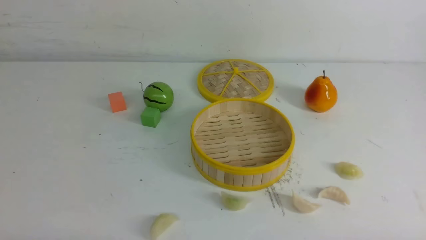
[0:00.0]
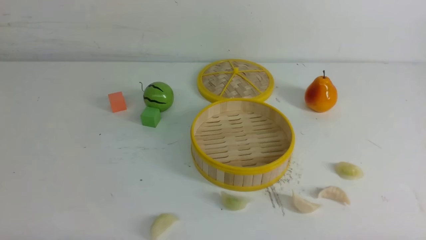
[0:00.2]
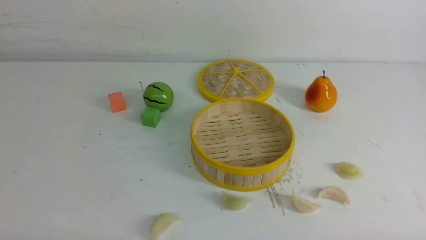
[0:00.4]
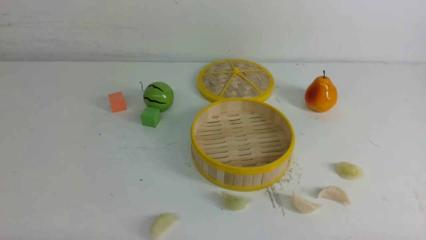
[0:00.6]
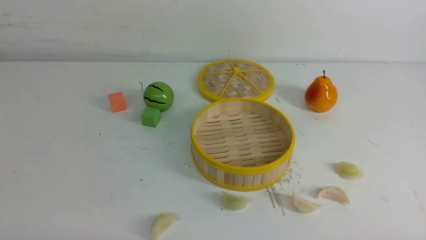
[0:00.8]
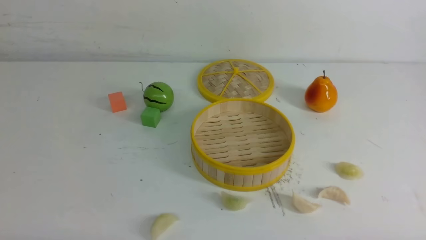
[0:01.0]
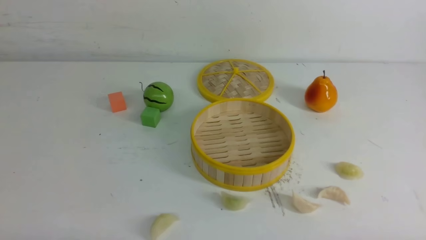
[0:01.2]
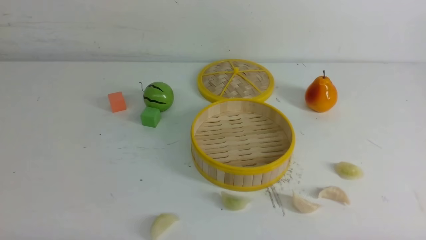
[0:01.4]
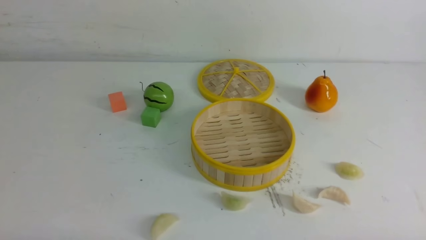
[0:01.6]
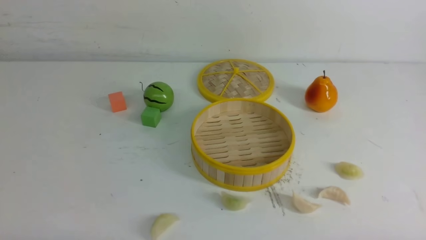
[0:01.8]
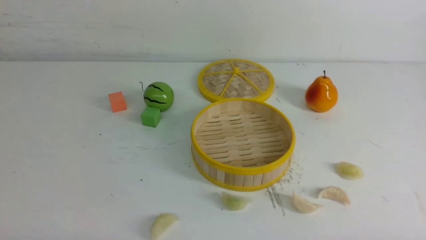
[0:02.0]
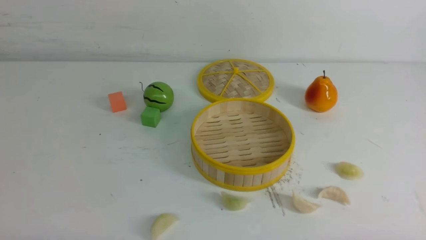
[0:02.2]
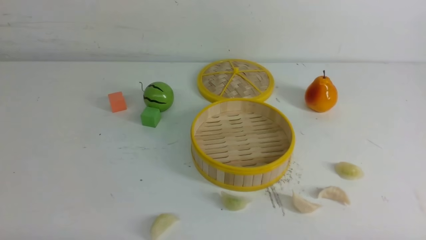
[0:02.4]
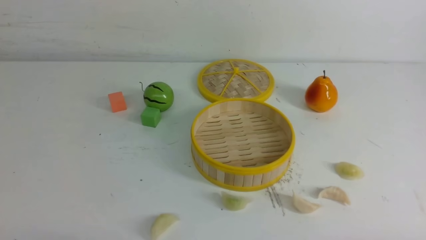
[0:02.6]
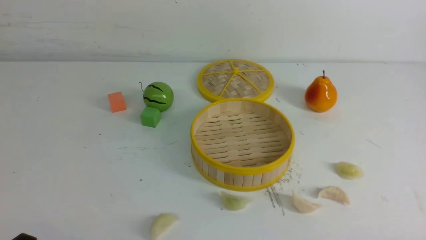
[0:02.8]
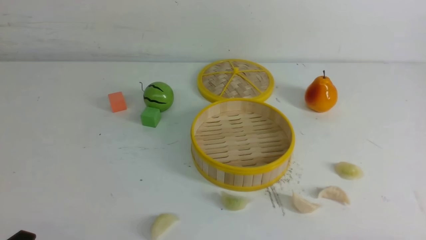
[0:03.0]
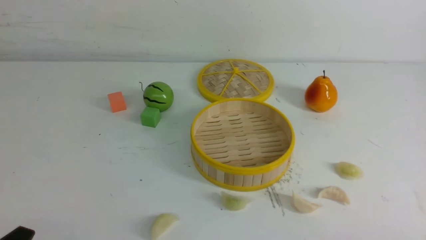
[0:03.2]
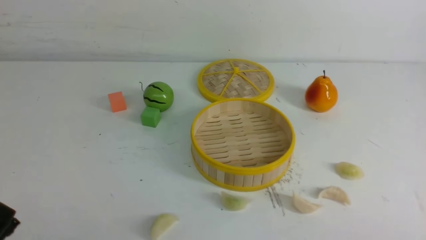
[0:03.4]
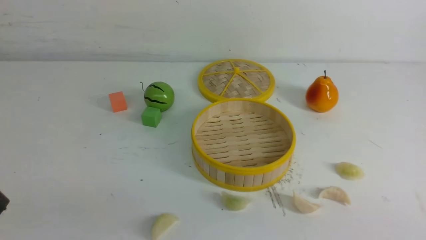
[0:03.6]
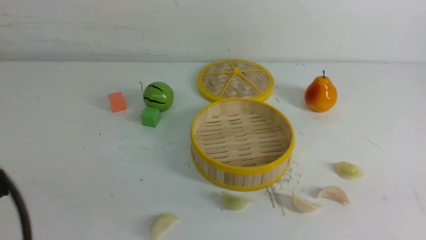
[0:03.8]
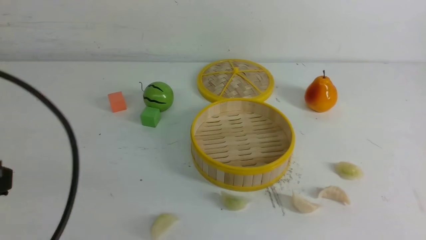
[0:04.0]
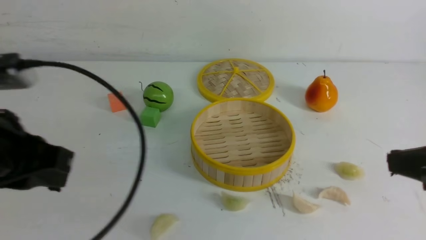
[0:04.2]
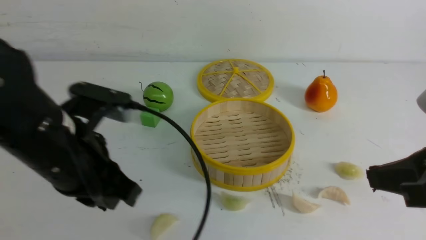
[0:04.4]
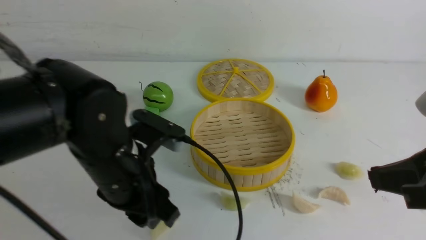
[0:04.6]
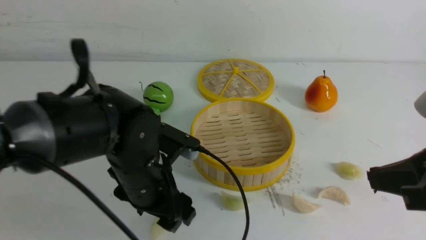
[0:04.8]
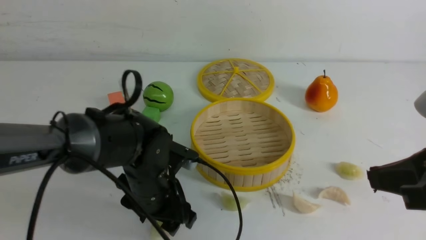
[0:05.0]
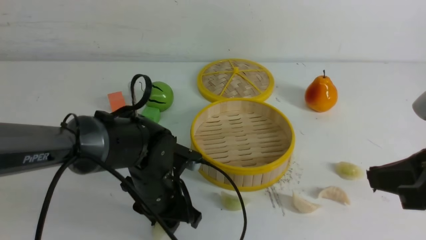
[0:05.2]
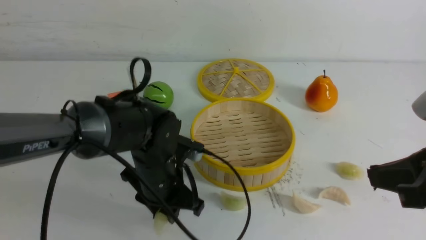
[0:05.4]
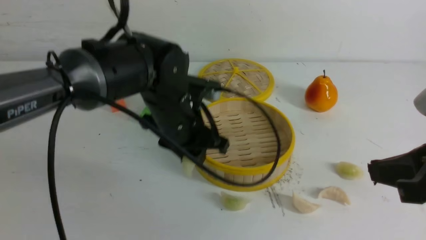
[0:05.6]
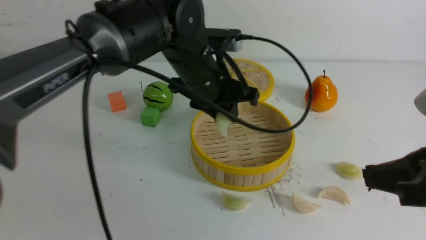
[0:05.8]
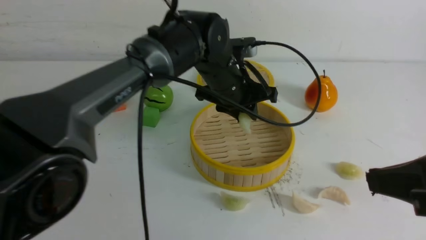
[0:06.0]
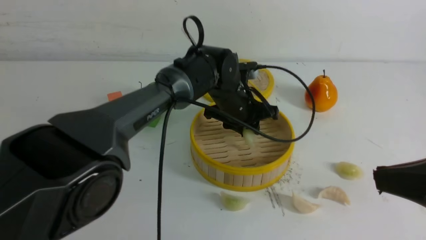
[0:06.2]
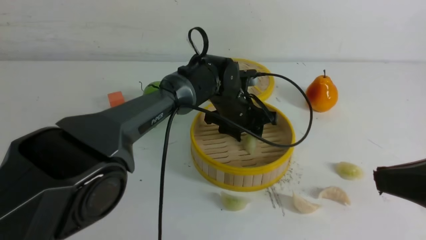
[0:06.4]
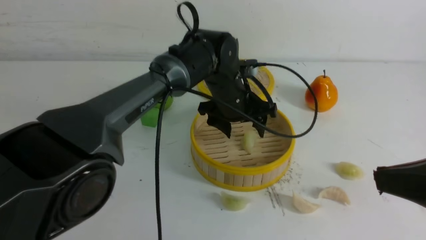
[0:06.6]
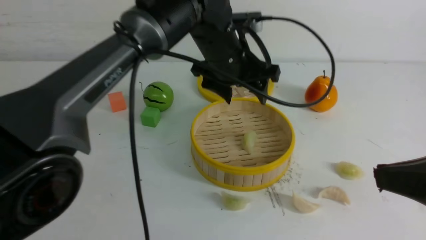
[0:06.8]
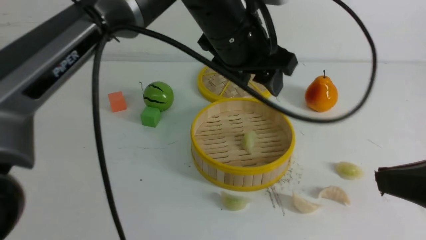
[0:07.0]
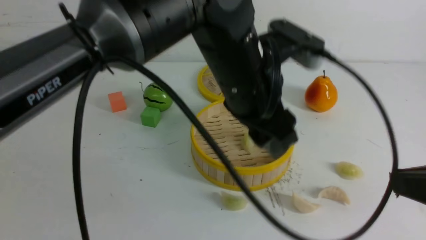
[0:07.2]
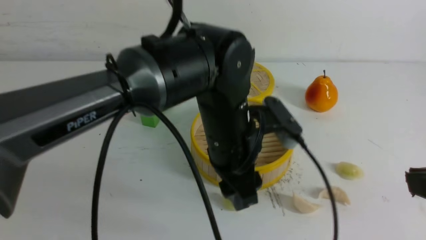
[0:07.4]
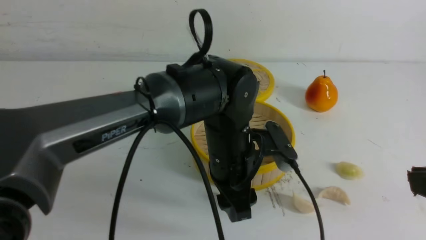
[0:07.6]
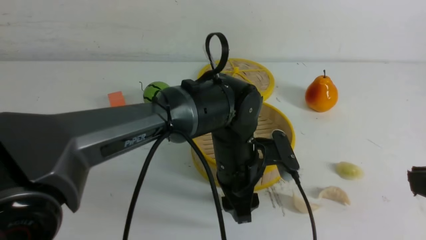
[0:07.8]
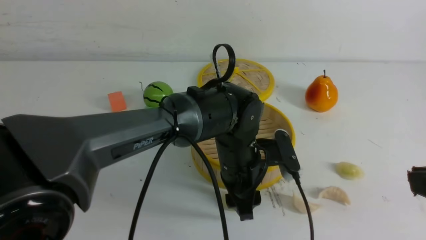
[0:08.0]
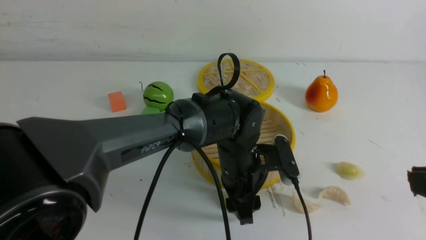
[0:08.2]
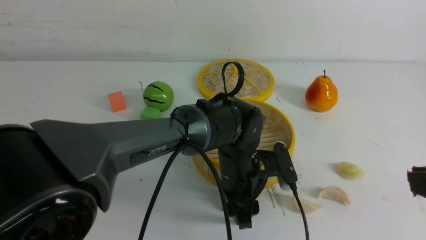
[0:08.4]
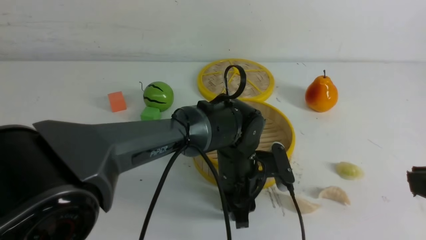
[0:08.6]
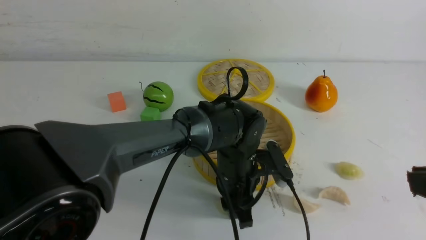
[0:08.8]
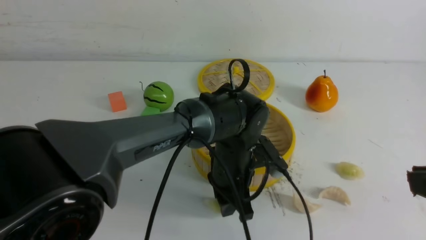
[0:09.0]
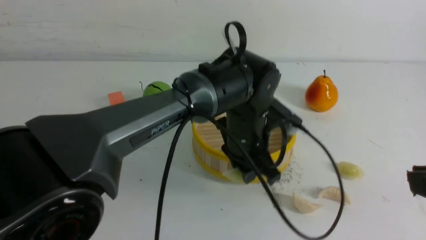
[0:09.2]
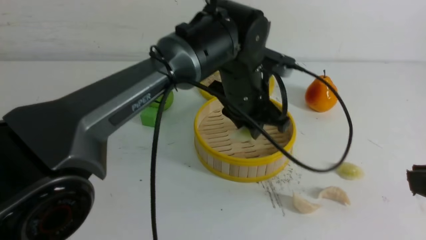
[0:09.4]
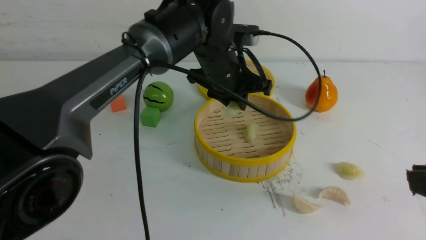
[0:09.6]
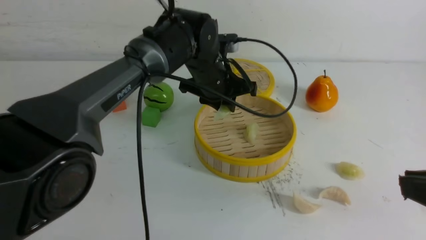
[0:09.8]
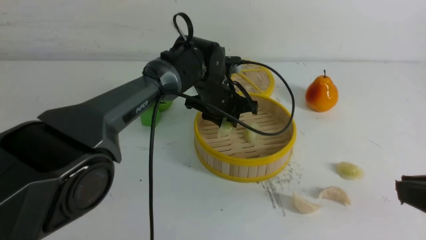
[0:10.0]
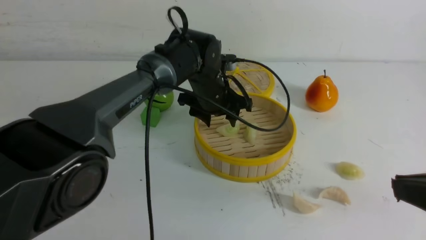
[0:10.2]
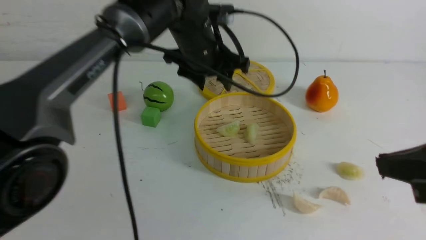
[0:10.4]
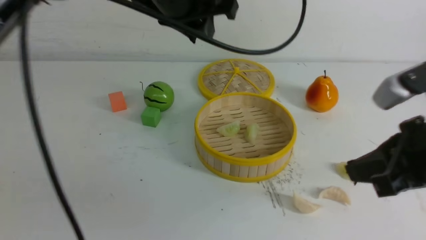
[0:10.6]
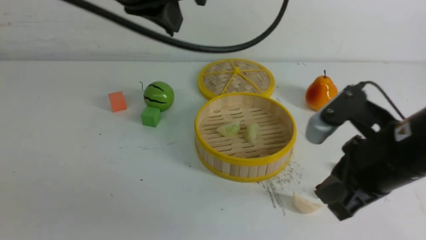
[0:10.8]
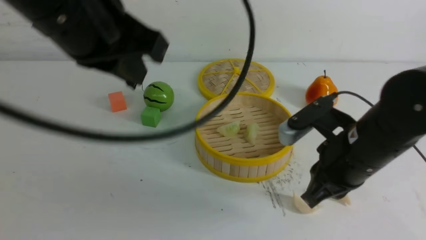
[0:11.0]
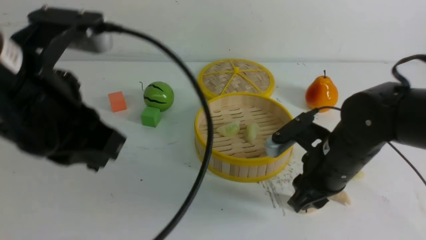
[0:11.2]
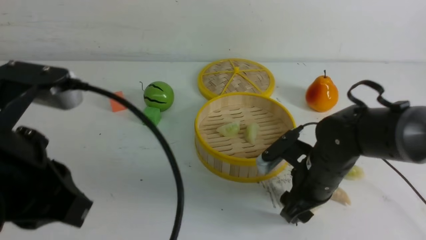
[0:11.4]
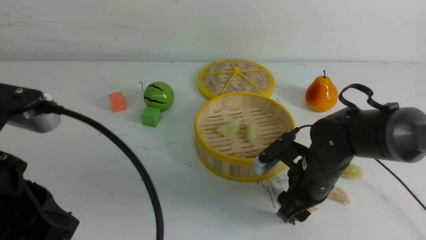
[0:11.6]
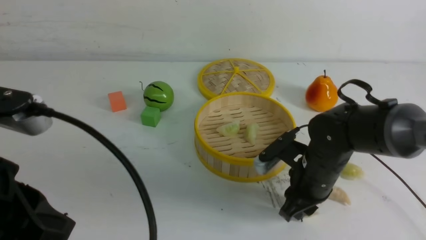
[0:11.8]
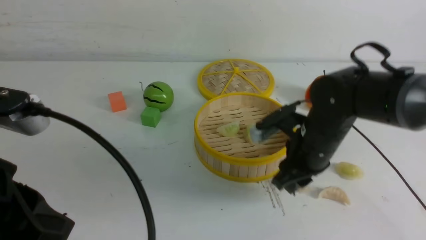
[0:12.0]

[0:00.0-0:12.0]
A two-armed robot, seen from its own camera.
Task of the whole recording: put the dumplings into the steamer on the white table.
Step, 0:00.0 to 0:05.2: use the left arm to grab a dumpling.
Step, 0:05.4 to 0:06.6: use the left arm to put the dumpling into the steamer.
Step, 0:06.8 to 0:09.0: use the left arm to grab a dumpling.
Step, 0:09.2 to 0:10.2: use the left arm to put the dumpling into the steamer.
Step, 0:10.4 to 0:11.8: use the right arm to grab a dumpling.
0:03.0 to 0:04.4: The right gripper moves upward and forward, some 20 cm, and closes its fingers. The left gripper is displaced forward, upward and to the right by some 20 cm.
0:04.4 to 0:06.0: The left gripper heads forward and to the right, covering some 25 cm, and opens, then closes once more.
0:06.0 to 0:07.6: The left gripper is displaced backward by roughly 10 cm, and opens its fingers; the right gripper shifts by about 5 cm.
0:07.6 to 0:09.0: The left gripper goes approximately 5 cm downward, and closes up.
0:09.0 to 0:10.4: The left gripper goes up and down, roughly 10 cm each way, reversing 2 times, and opens.
0:10.4 to 0:12.0: The right gripper moves forward, downward and to the left, approximately 25 cm, and opens up. Meanwhile the left gripper goes approximately 35 cm backward and to the left, and closes its fingers.

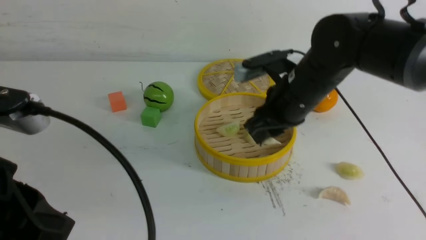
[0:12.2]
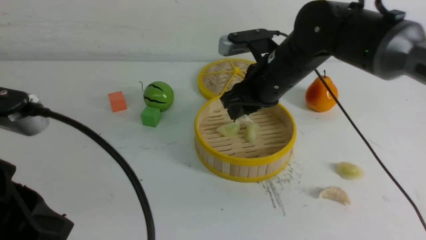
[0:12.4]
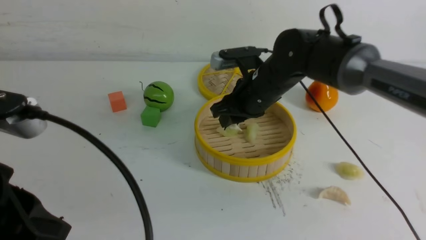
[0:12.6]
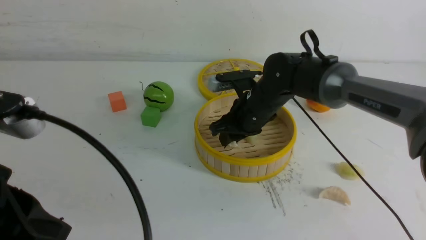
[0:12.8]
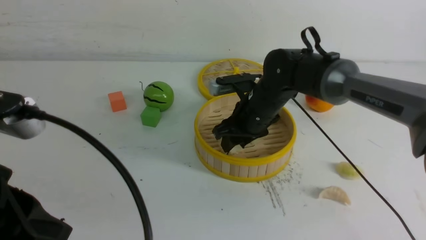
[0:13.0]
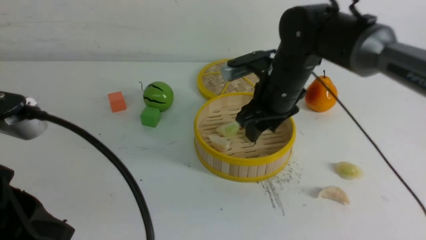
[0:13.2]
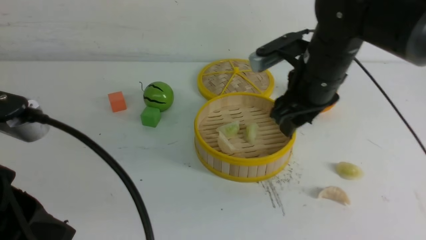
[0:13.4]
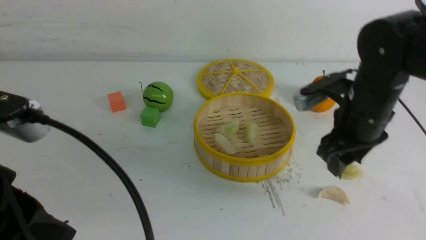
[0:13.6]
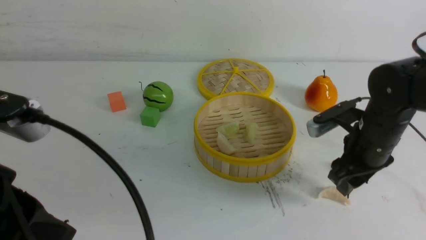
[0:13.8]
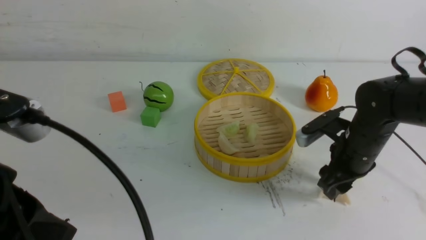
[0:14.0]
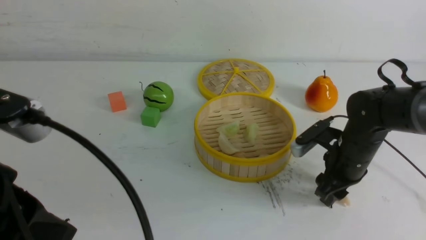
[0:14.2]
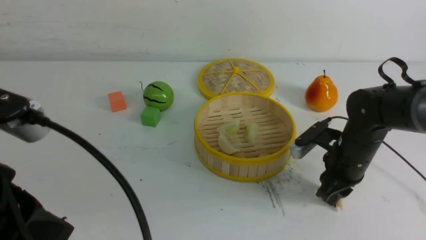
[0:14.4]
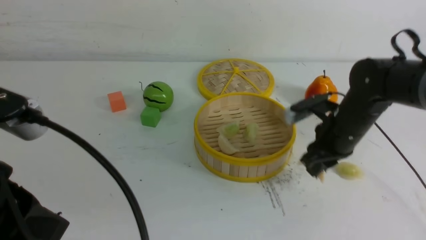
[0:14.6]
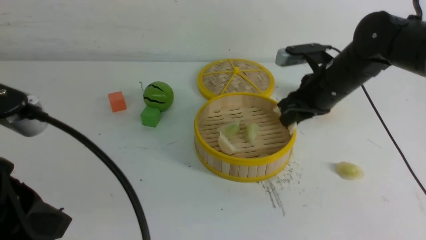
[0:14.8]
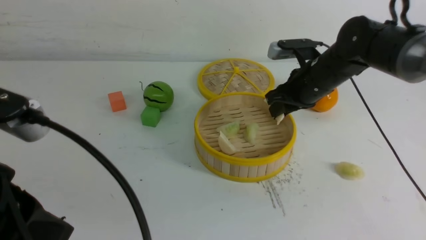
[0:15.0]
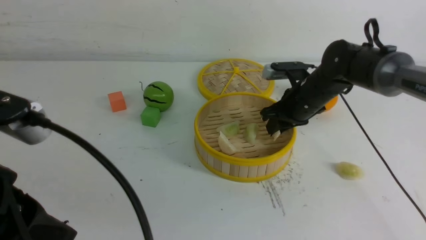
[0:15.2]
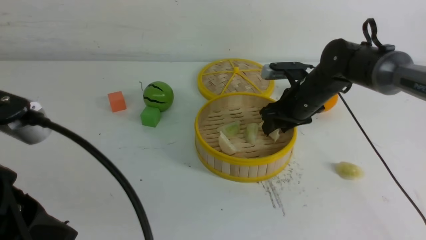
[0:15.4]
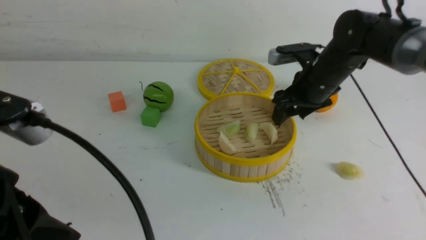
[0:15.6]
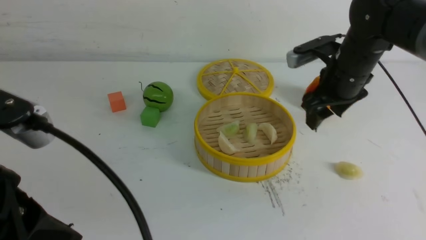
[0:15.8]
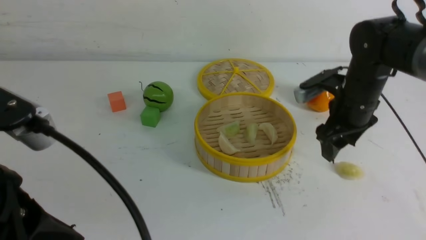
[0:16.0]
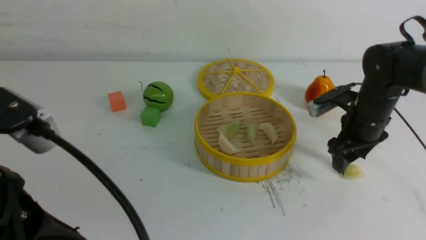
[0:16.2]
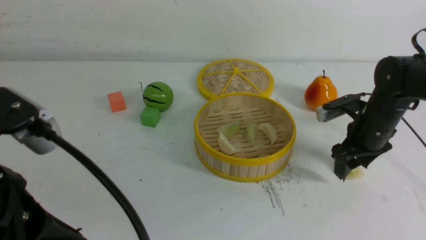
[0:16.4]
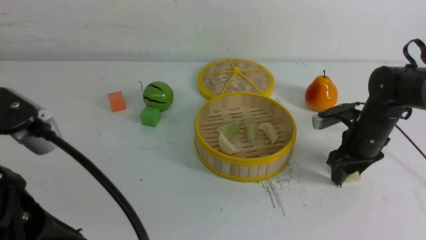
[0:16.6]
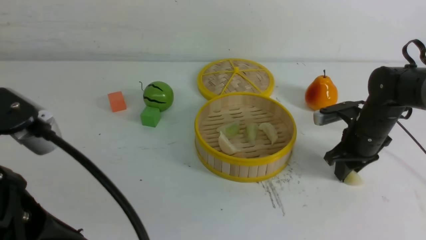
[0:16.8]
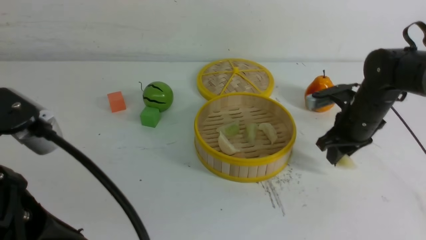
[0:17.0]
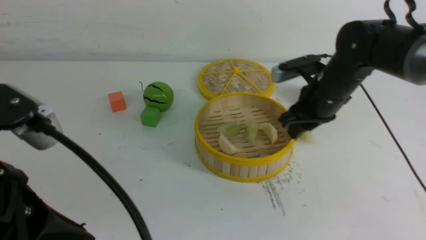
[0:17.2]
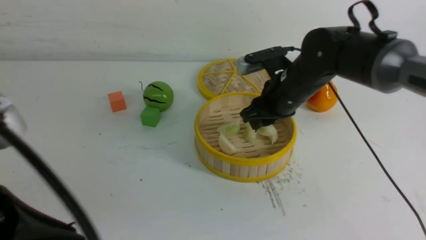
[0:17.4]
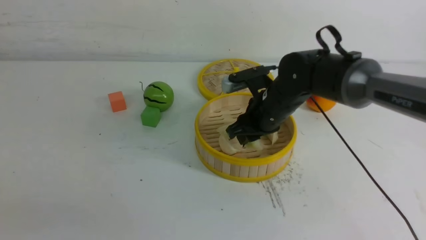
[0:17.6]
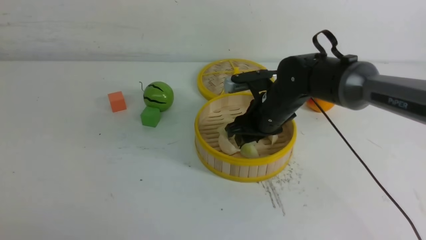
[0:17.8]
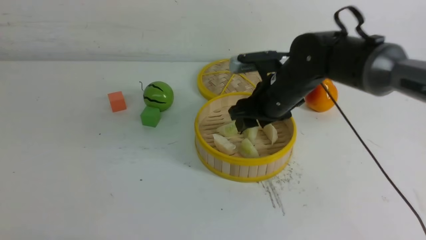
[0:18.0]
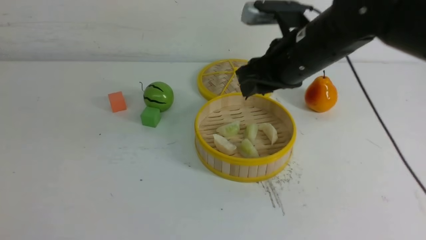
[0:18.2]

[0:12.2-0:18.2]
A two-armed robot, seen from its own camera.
Task of the whole recording: put the dumplings into the steamer on the white table.
Step, 0:12.2 to 0:13.0: use the right arm to put the dumpling into the steamer.
Step, 0:13.4 to 0:14.4: use the right arm to grab a dumpling.
Step, 0:14.6 to 0:15.4: use the right arm to put the dumpling into the steamer.
Step, 0:15.6 to 0:16.8: use the right arm to grab a dumpling.
Step, 0:17.0 to 0:17.8: use the right arm to put the dumpling into the steamer.
0:12.2 to 0:13.8: The right gripper is displaced to the right by approximately 10 cm, and opens its fingers.
0:13.8 to 0:15.2: The right gripper goes about 10 cm forward, and closes.
0:15.2 to 0:16.6: The right gripper travels to the right and downward by roughly 10 cm, and opens up.
0:16.6 to 0:18.2: The right gripper shifts roughly 20 cm to the left and upward. The left gripper heads backward and to the left, covering some 15 cm.
